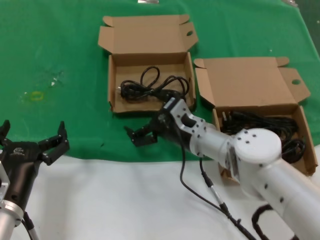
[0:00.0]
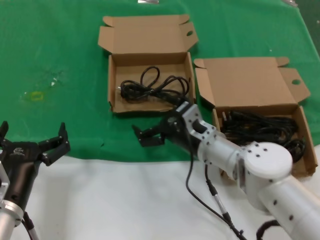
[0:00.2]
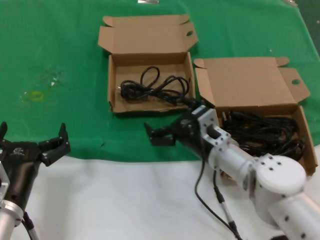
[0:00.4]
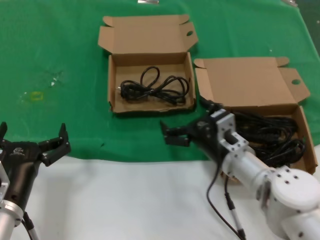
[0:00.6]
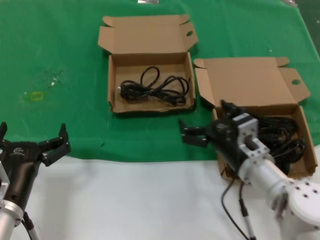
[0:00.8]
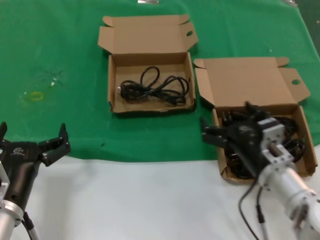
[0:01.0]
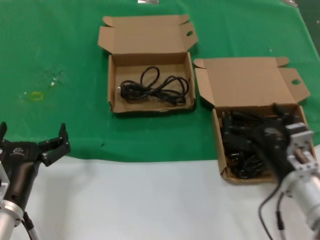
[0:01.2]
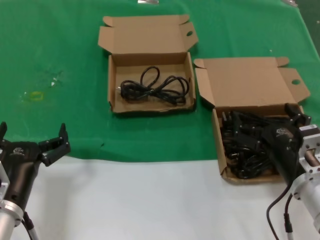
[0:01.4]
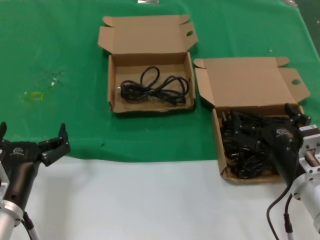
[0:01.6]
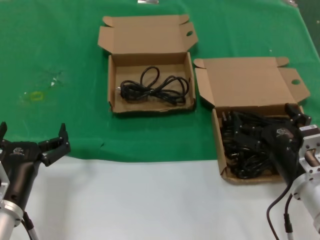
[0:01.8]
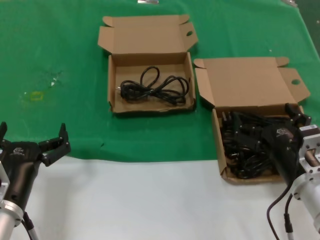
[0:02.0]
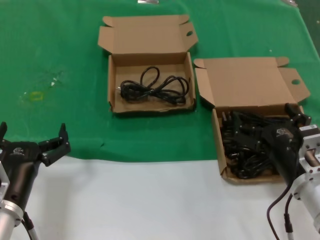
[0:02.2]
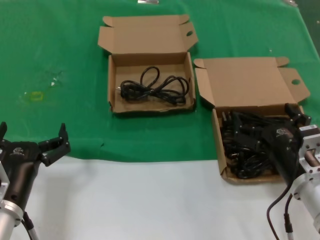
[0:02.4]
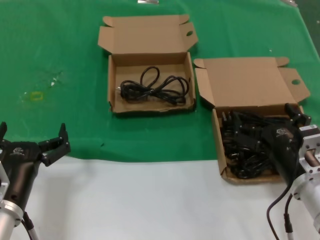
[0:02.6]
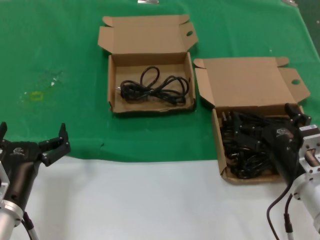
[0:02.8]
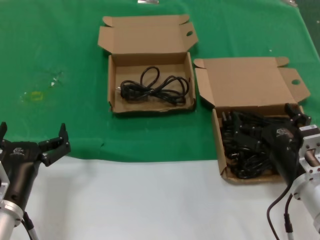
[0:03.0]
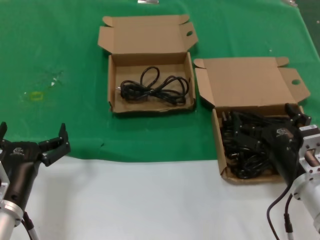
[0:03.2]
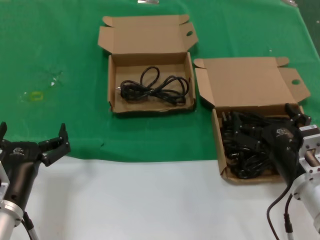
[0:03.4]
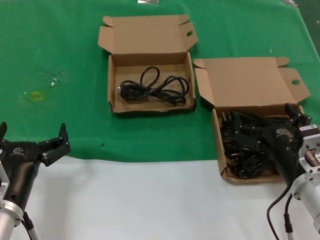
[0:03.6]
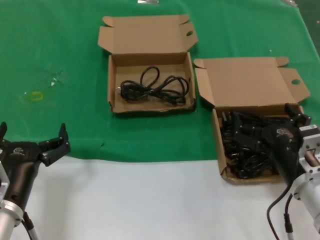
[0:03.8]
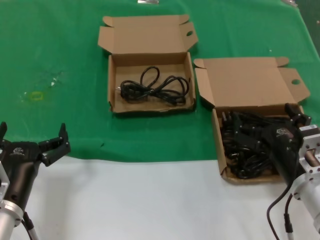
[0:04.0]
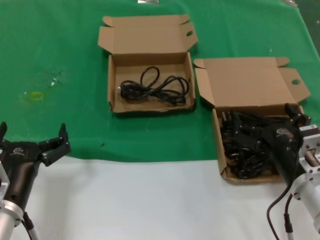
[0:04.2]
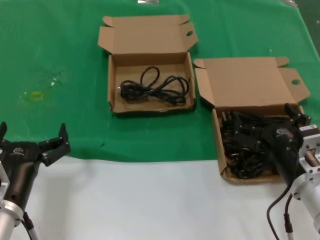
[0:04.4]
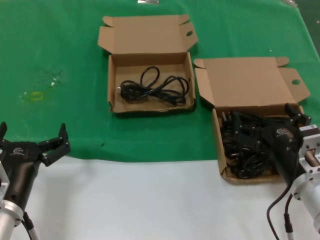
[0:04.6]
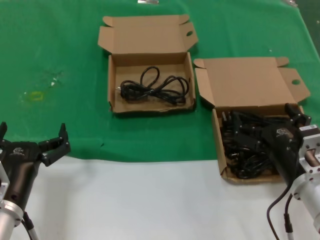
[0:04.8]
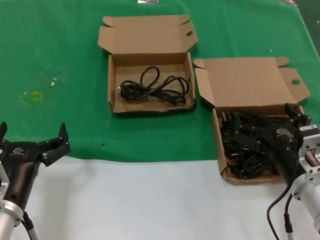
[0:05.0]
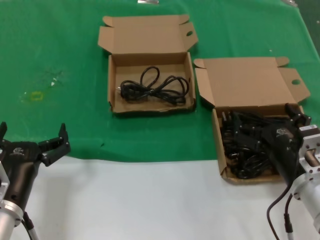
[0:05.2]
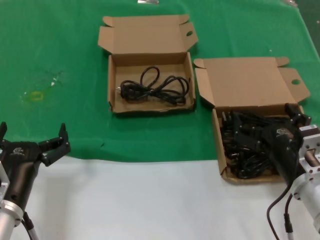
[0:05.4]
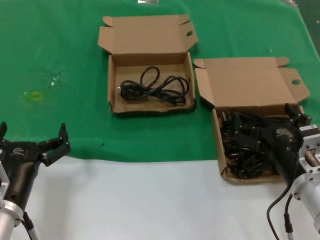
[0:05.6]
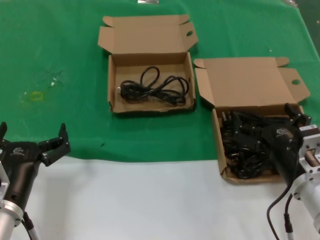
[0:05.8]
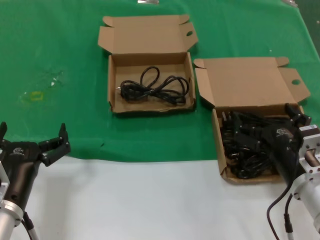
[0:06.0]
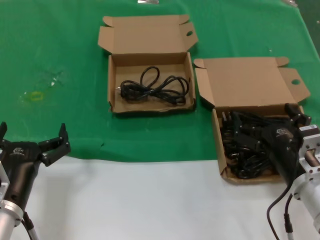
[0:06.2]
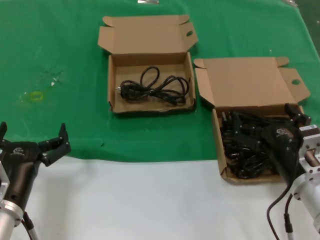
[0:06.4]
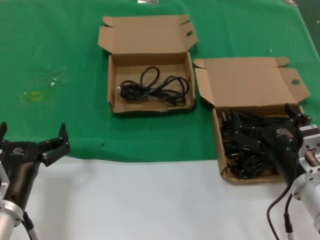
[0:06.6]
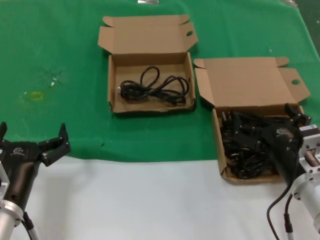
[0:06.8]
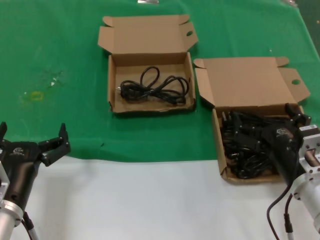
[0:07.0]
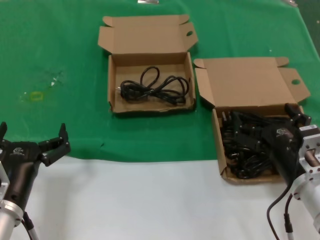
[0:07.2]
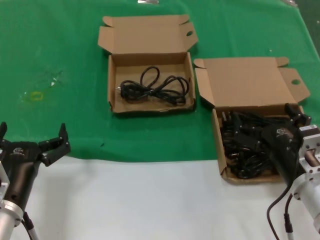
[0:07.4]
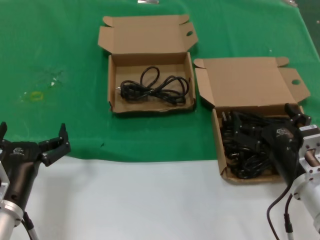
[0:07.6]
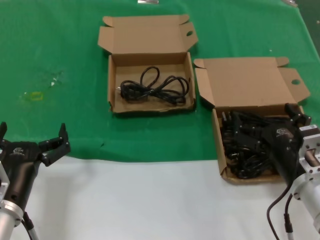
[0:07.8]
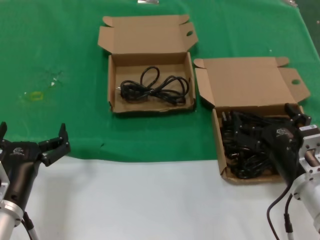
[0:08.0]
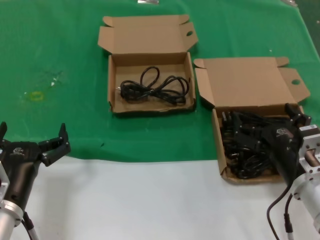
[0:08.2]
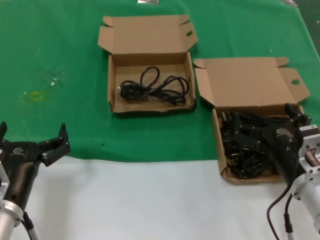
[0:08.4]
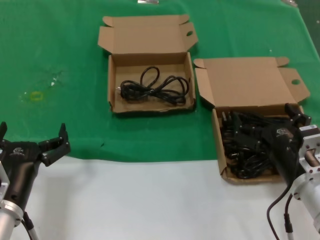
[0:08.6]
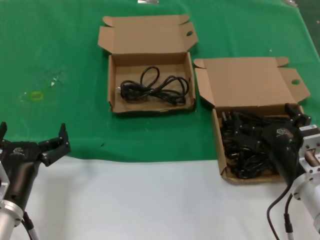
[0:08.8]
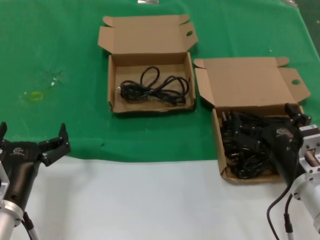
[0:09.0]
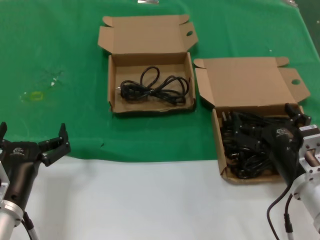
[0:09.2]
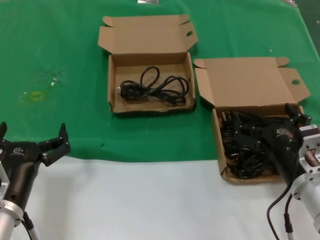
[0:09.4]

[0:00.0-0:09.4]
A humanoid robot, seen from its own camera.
Task of the whole recording: take the parts from the box containing them and put them into an empty box.
0:00.0 to 0:01.6: The right hand shifts about 20 cm backward and to the right.
0:01.6 to 0:09.4: The two hands keep their place.
